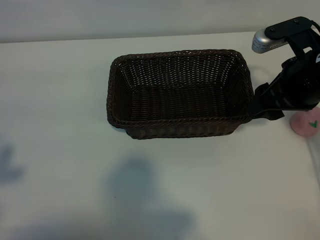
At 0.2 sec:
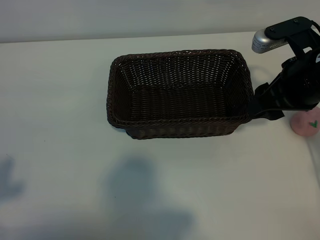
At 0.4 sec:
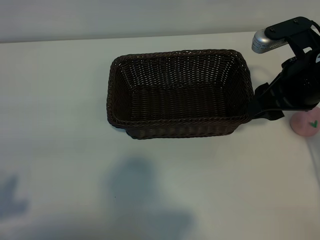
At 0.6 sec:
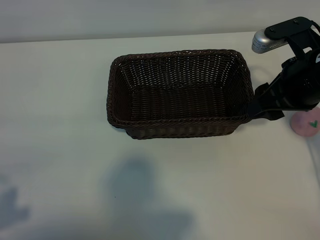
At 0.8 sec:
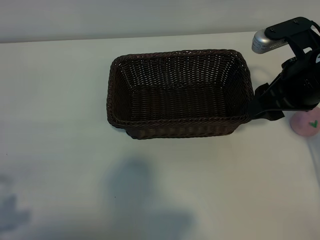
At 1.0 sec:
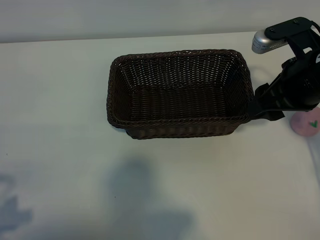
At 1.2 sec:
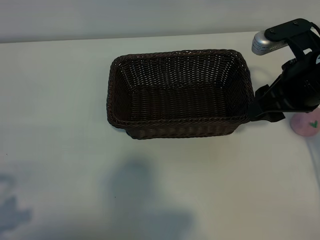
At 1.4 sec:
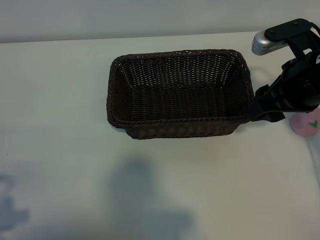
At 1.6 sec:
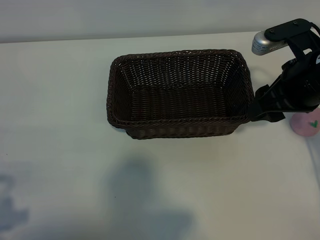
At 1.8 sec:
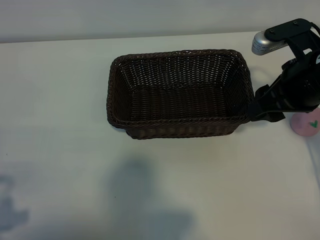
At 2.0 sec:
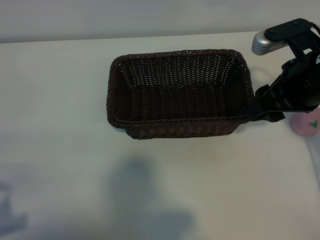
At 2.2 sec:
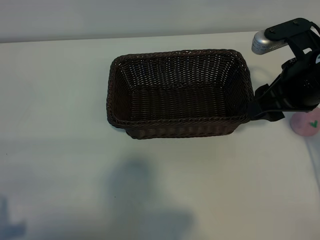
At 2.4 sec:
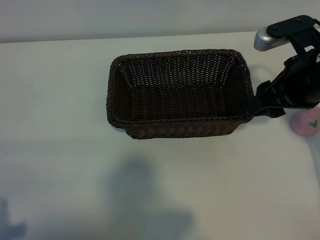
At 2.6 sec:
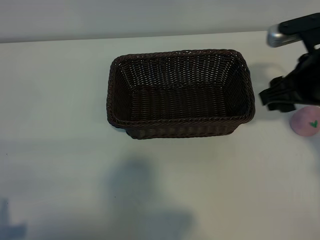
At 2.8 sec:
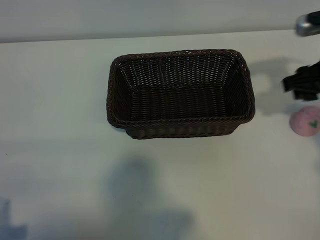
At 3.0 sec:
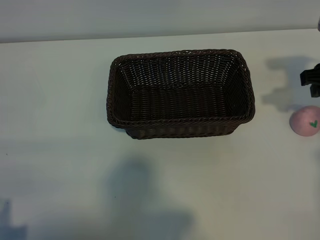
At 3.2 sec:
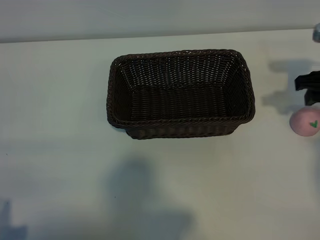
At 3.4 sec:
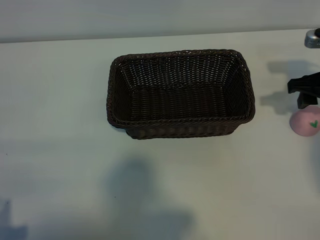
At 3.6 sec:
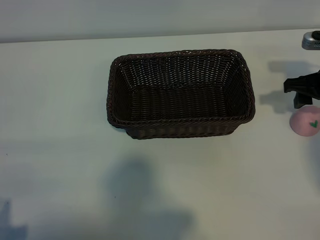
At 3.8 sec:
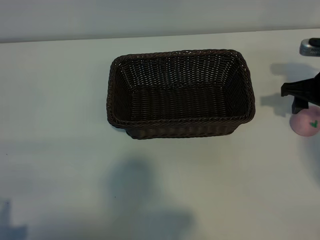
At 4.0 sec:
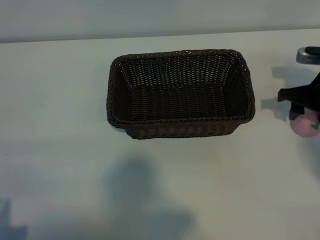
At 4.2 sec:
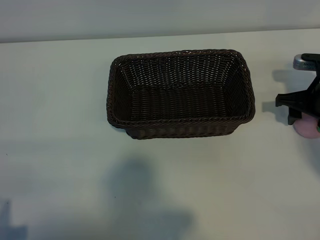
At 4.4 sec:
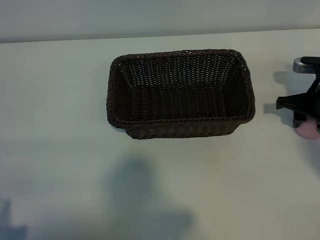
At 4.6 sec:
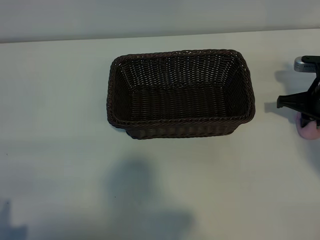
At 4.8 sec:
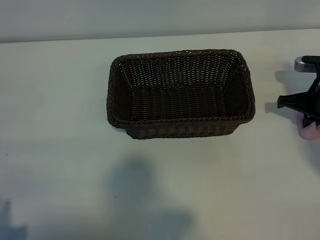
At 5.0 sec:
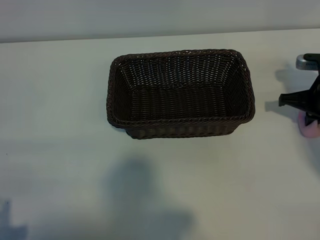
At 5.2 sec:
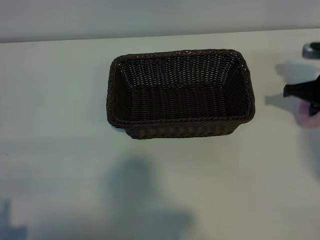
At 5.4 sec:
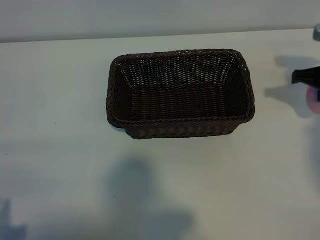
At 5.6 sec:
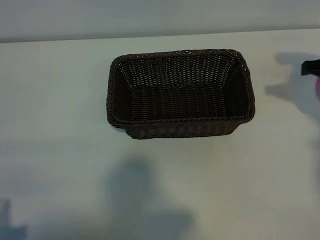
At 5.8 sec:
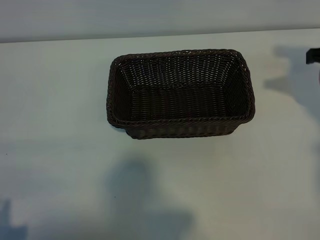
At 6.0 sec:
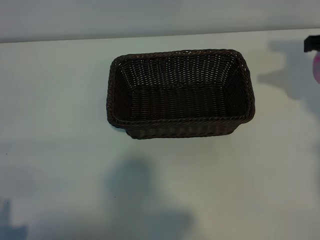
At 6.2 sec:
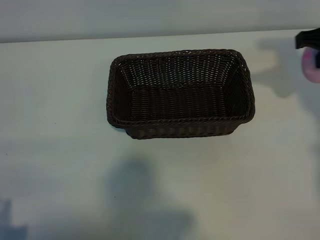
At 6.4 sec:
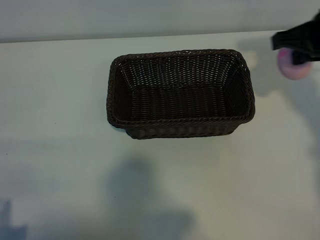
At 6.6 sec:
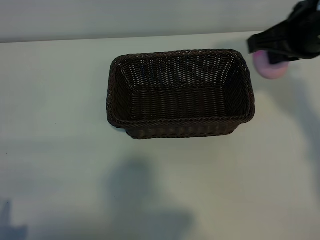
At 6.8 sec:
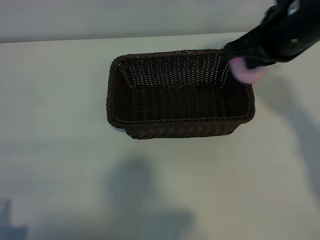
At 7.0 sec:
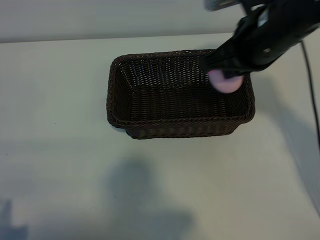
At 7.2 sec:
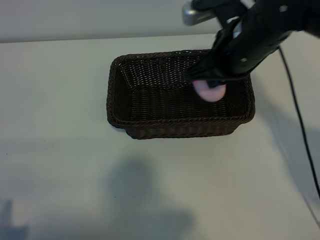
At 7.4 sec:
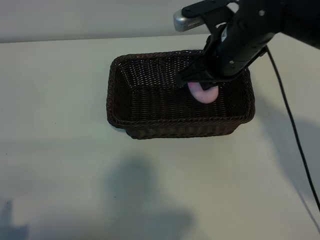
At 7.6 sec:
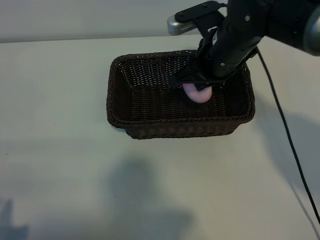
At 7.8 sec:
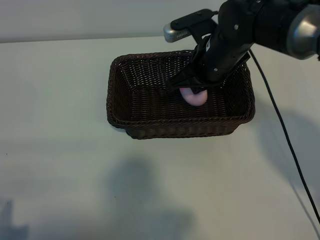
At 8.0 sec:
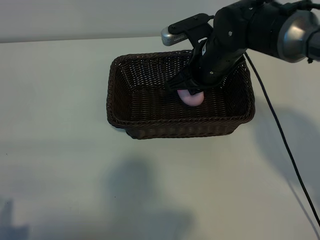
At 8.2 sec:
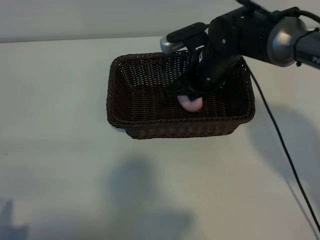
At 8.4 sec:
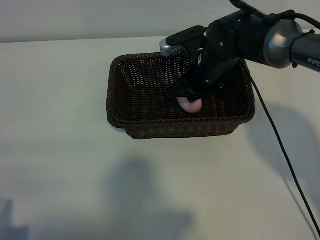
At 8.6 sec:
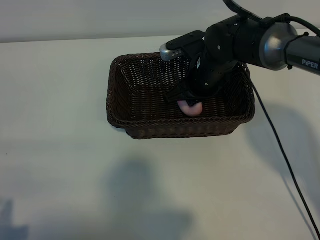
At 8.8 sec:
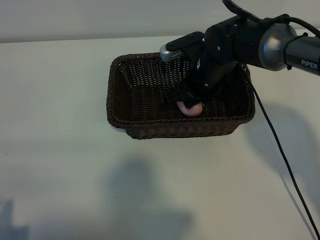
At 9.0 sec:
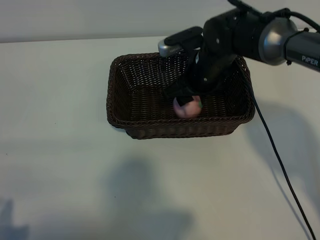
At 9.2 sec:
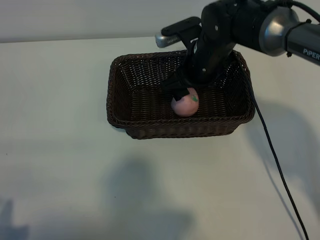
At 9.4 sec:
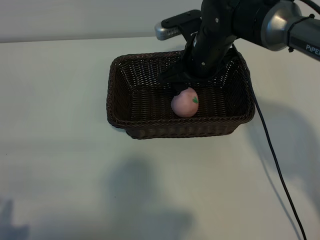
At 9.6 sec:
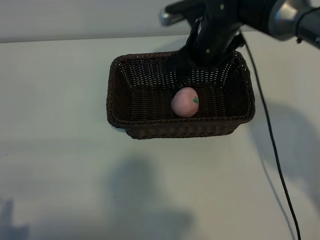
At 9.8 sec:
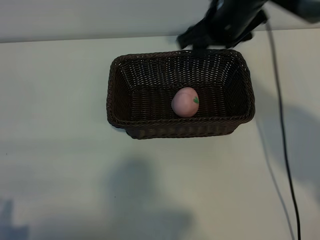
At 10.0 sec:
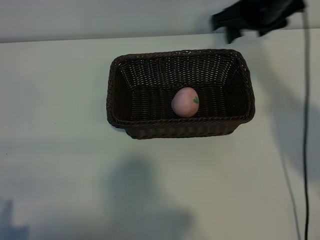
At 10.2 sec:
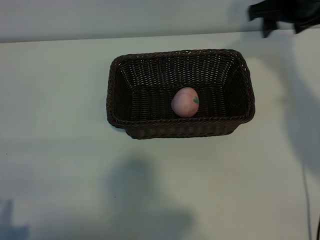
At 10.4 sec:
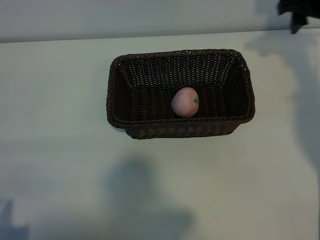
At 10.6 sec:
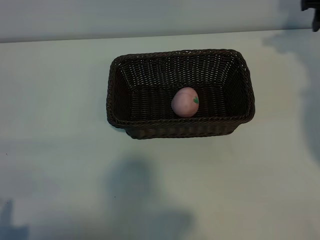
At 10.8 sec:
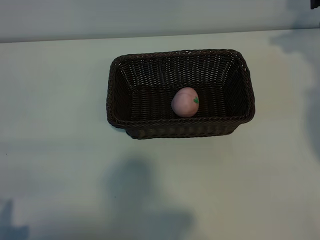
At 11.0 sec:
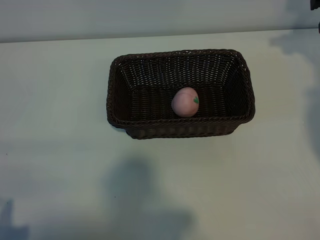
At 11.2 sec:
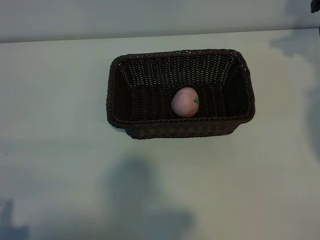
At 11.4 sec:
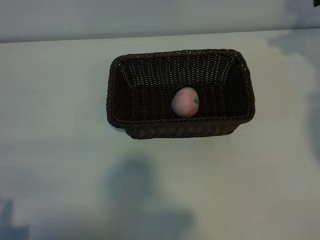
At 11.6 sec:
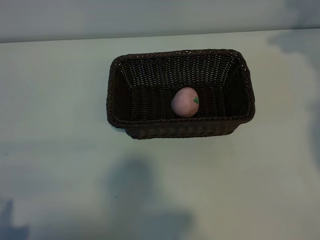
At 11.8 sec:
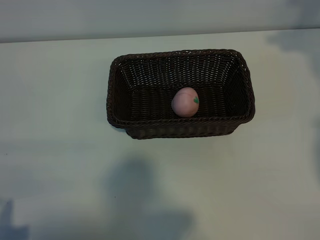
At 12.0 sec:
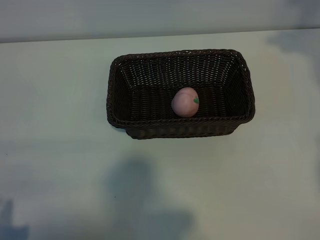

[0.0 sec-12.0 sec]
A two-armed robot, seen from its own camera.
Task of the whole recording: pick up the peach and put it into the basket.
Step, 0.0 sec to 4.8 sec: Grasp the peach with right gripper.
Step, 5.0 sec to 9.0 sec: Place the peach in the basket with right gripper.

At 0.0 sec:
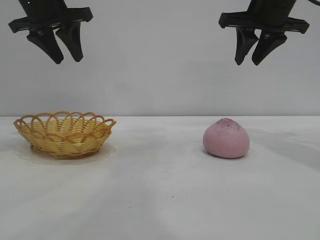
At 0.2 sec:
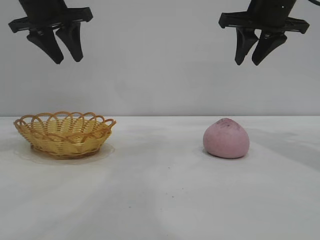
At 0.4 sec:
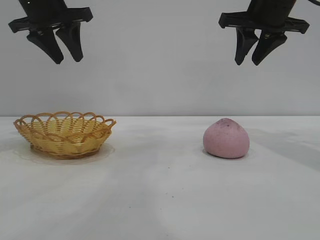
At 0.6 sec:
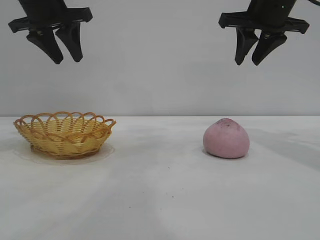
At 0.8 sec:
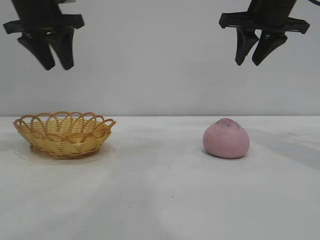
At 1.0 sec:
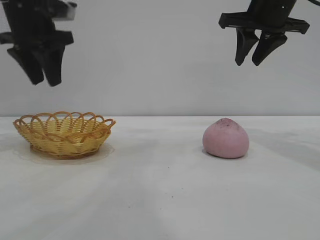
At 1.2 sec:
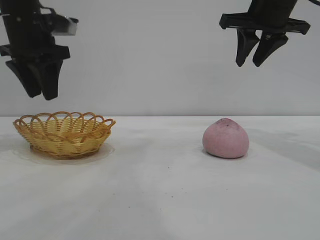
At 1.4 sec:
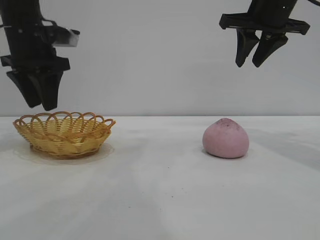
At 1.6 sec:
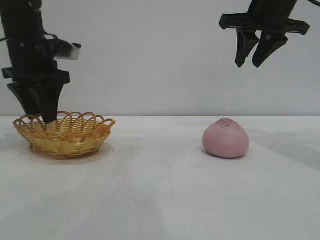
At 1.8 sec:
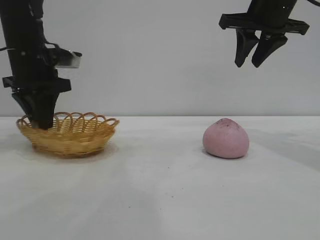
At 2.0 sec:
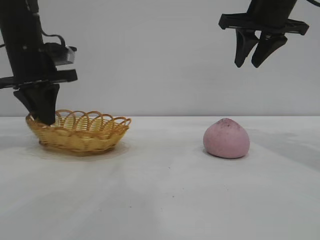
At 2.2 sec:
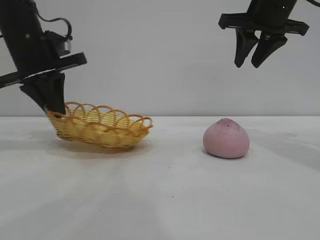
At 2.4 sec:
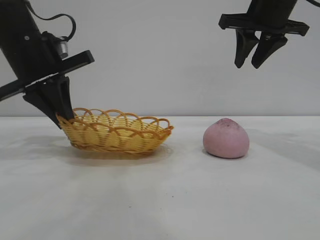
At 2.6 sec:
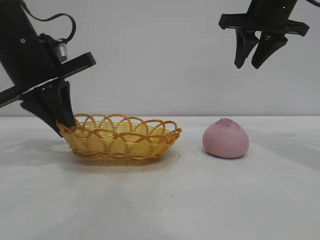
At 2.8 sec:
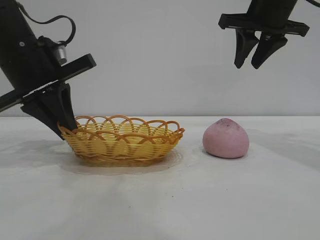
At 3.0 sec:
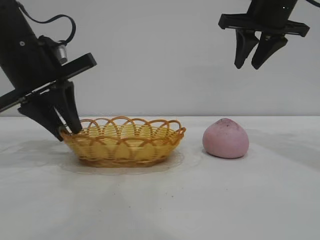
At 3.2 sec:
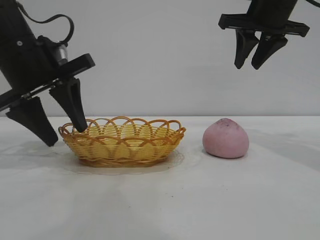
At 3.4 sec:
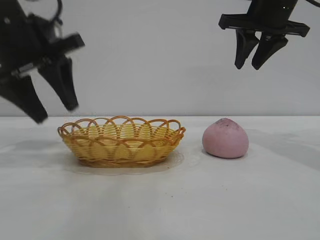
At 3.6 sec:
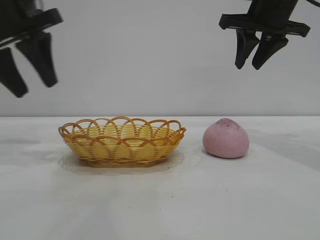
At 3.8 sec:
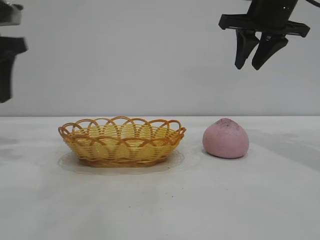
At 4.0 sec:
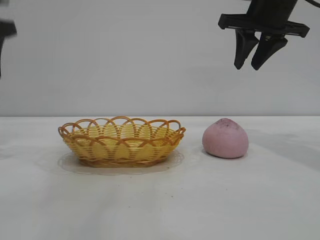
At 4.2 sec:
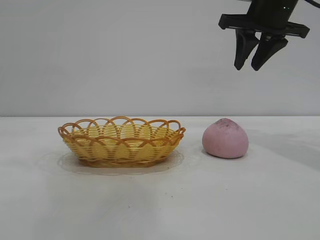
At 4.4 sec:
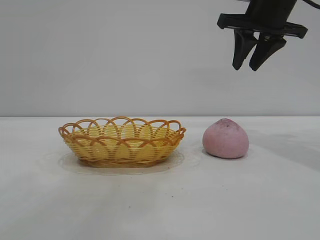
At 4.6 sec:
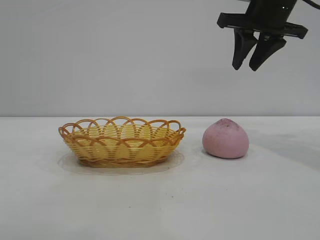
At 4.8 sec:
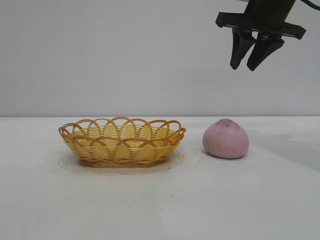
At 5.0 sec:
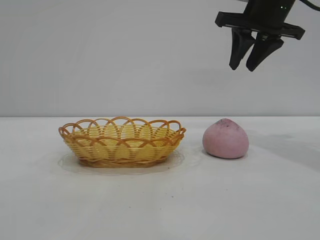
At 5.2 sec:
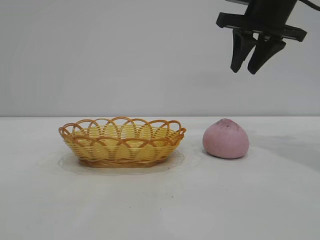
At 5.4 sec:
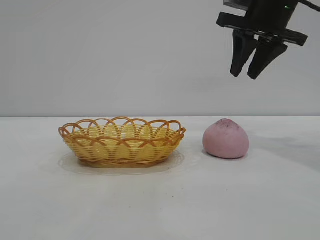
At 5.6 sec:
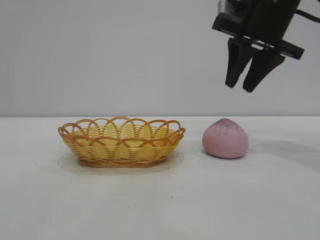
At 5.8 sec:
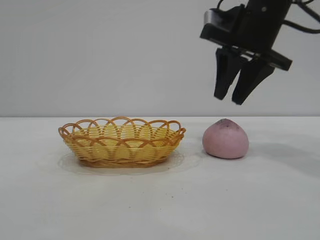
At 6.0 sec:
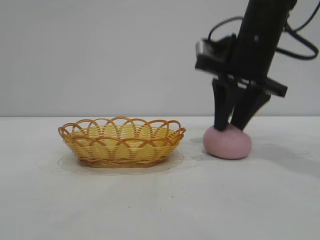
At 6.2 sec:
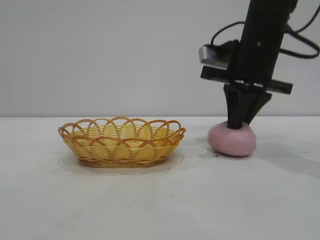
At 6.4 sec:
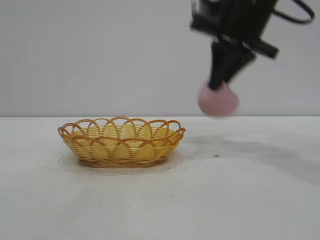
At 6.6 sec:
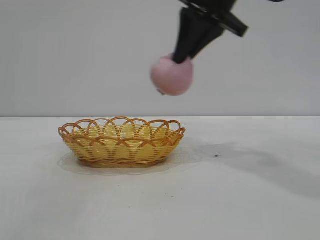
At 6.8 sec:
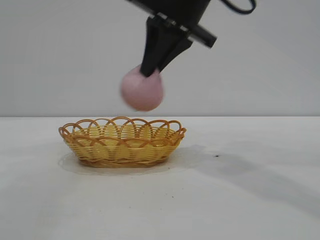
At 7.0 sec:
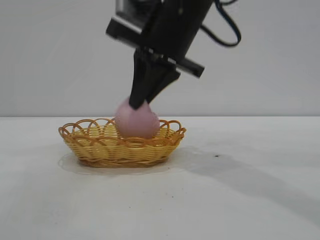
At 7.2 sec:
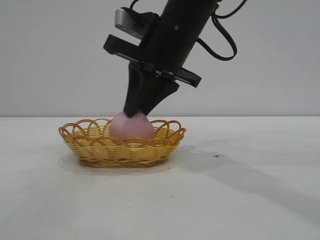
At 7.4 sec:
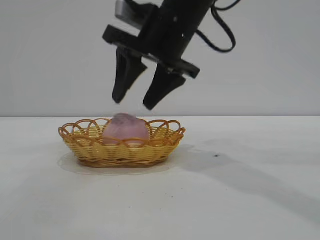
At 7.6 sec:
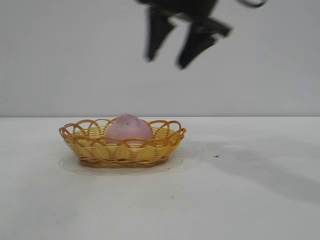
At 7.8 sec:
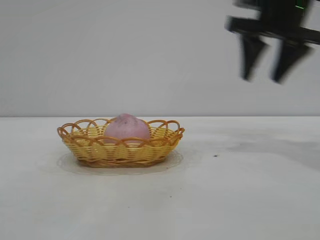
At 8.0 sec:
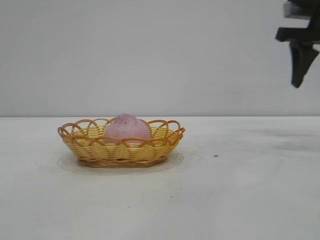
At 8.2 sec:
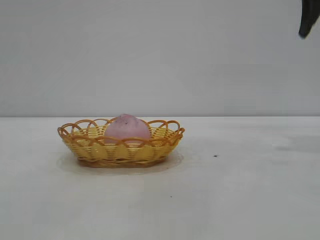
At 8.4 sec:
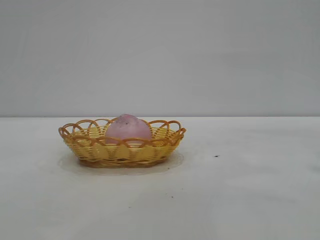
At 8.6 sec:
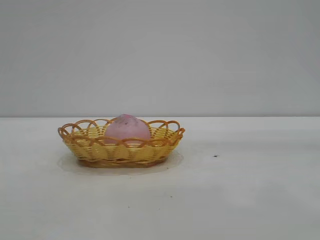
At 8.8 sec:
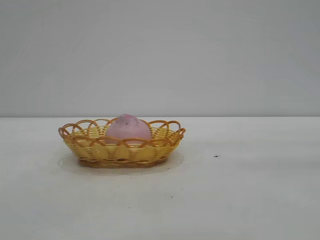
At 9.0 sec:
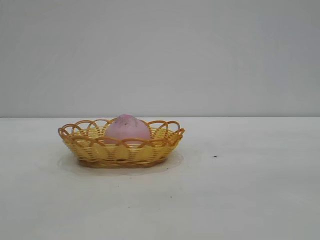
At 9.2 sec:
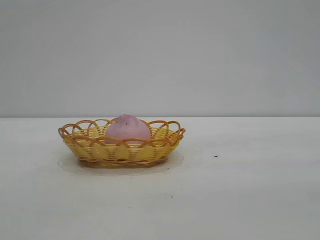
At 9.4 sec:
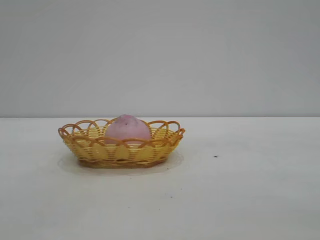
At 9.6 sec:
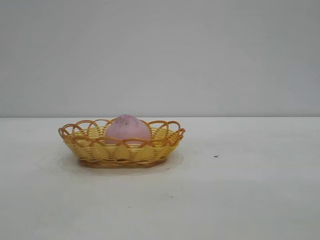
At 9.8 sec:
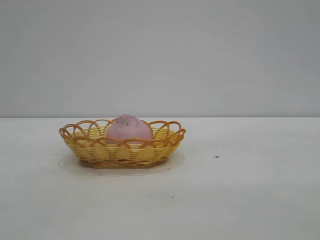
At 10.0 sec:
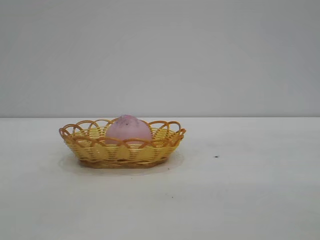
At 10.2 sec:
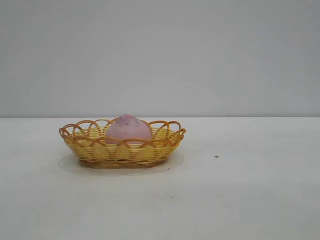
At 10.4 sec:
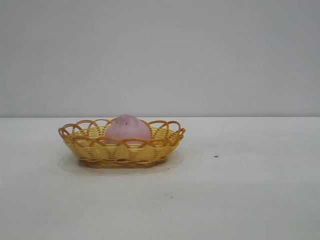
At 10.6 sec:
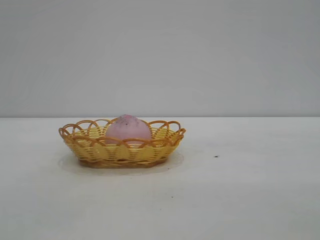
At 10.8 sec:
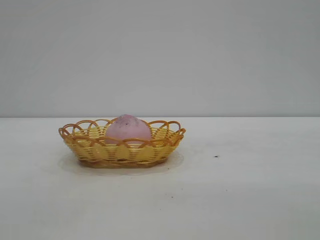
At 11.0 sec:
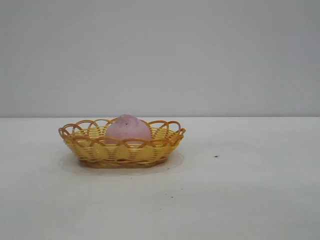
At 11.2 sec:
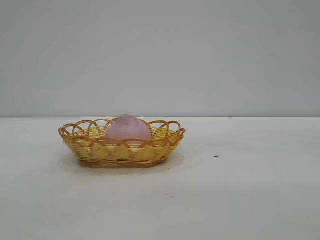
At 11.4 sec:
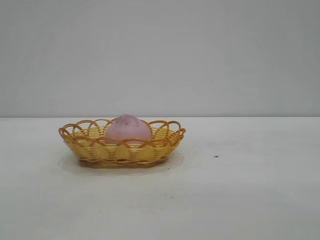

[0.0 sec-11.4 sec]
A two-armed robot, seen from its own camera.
Task of the whole recording: pick up the peach and put it into the basket.
Step, 0.0 sec to 3.4 sec: Move the basket to the center of view.
Step, 3.6 sec to 6.2 sec: Pick up the peach.
Step, 6.6 sec to 7.4 sec: place the peach into the basket.
